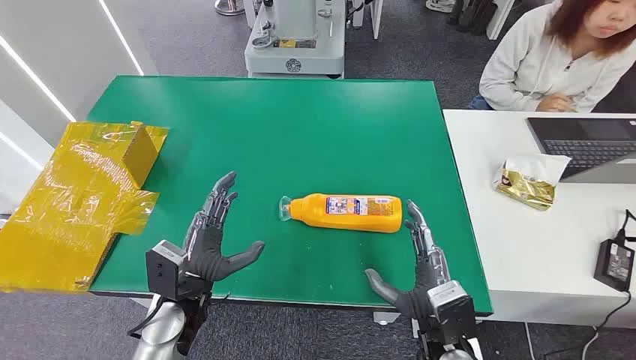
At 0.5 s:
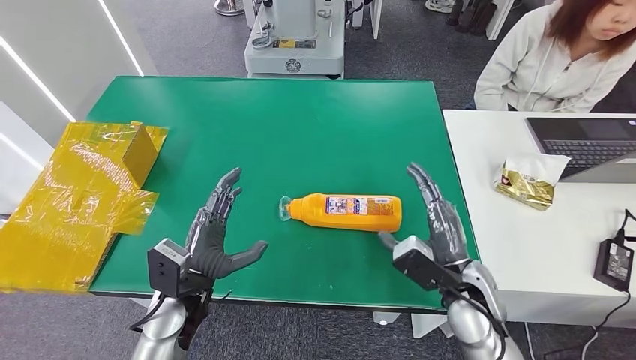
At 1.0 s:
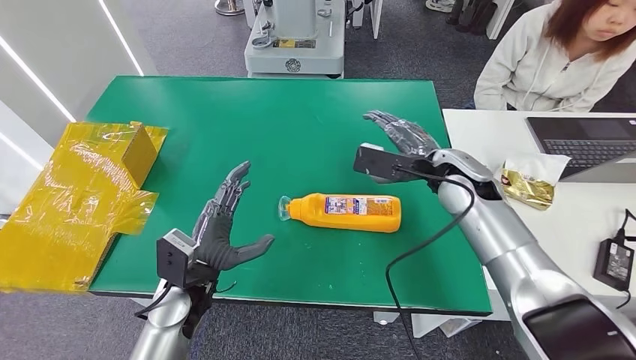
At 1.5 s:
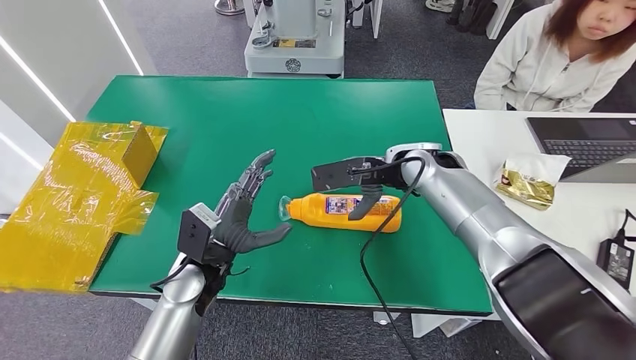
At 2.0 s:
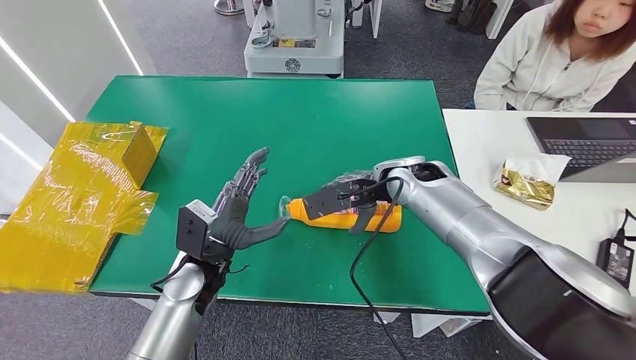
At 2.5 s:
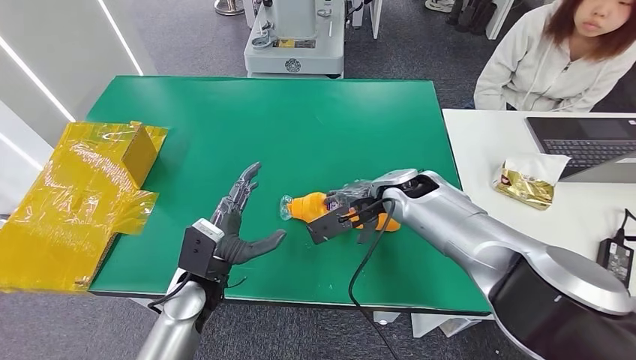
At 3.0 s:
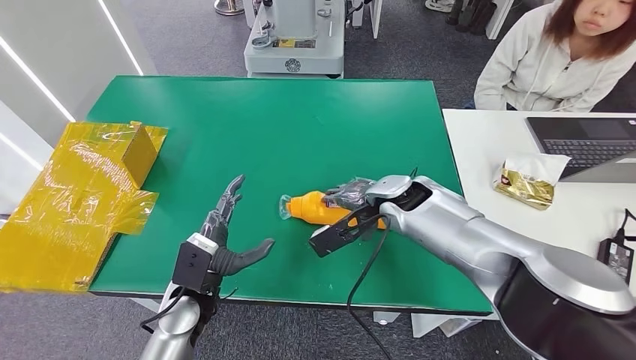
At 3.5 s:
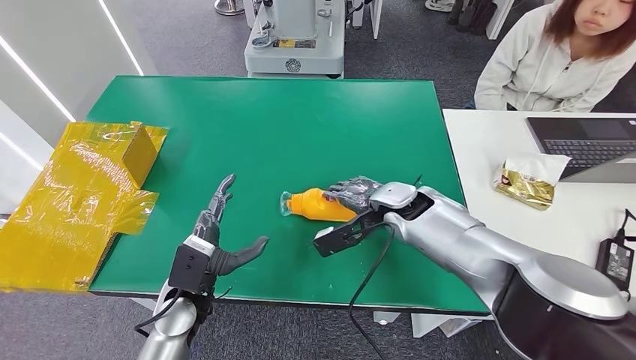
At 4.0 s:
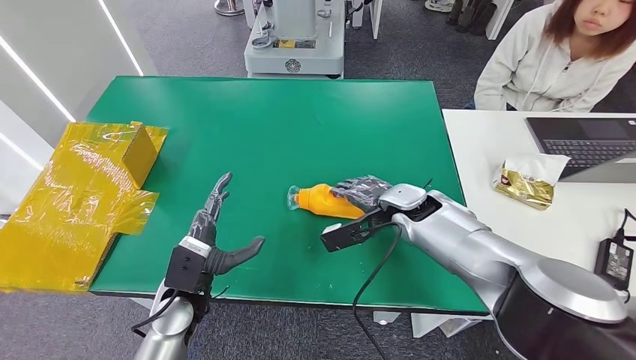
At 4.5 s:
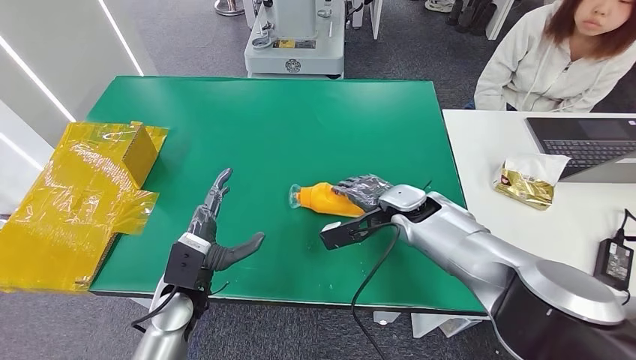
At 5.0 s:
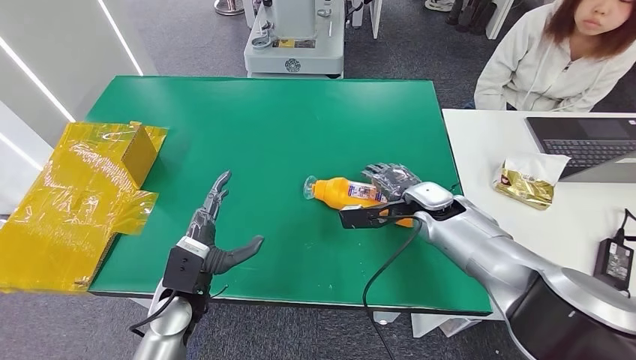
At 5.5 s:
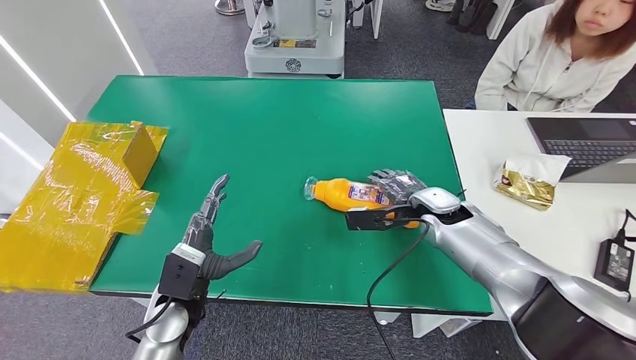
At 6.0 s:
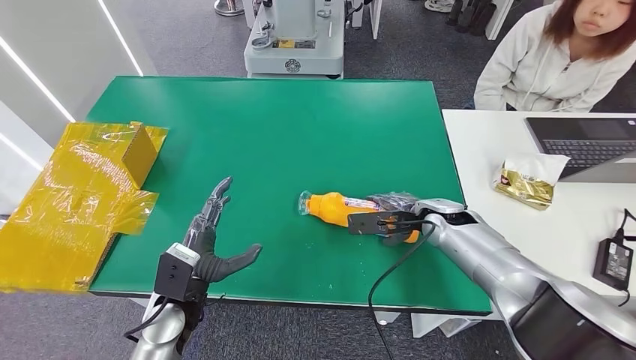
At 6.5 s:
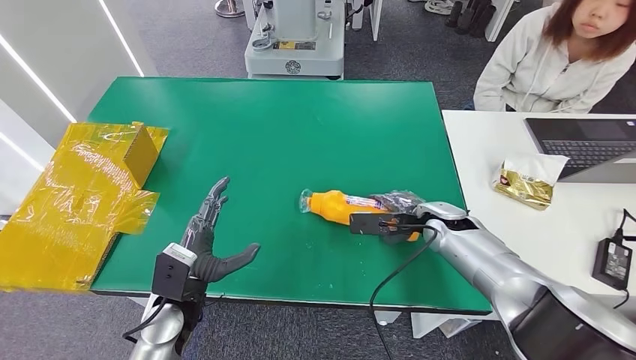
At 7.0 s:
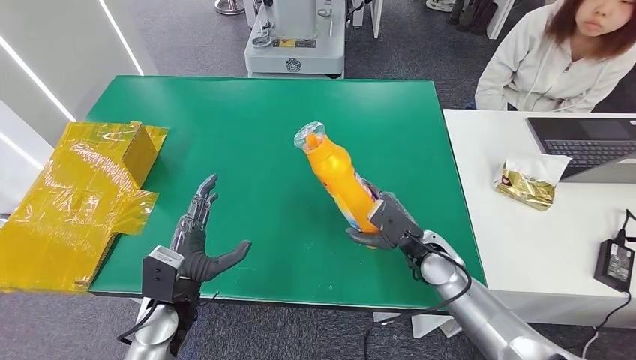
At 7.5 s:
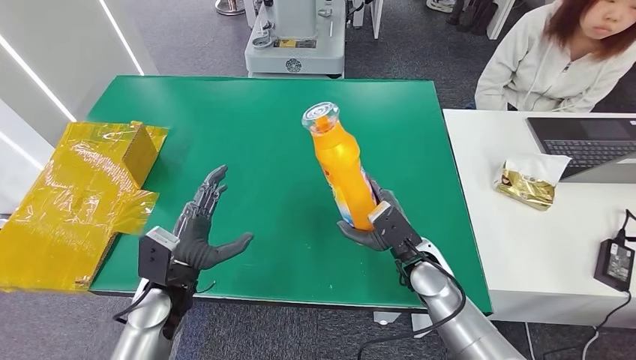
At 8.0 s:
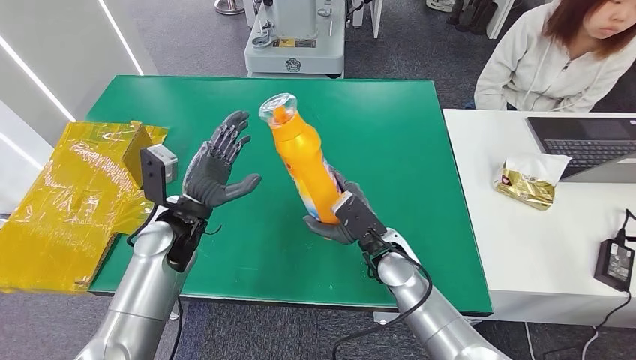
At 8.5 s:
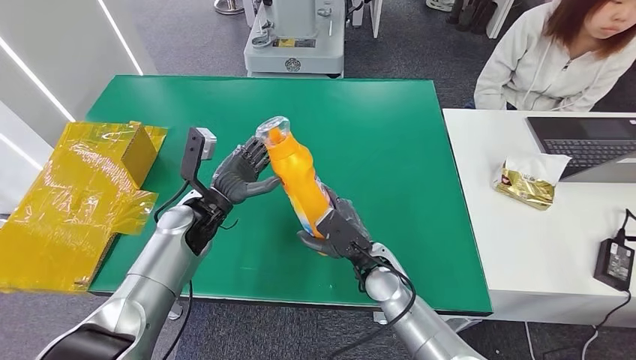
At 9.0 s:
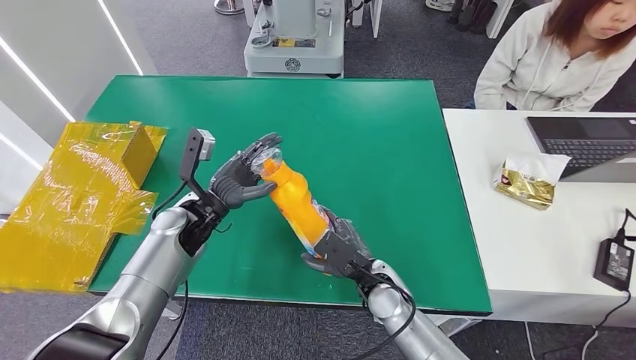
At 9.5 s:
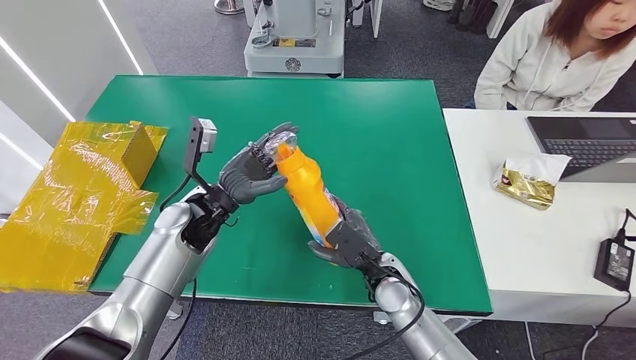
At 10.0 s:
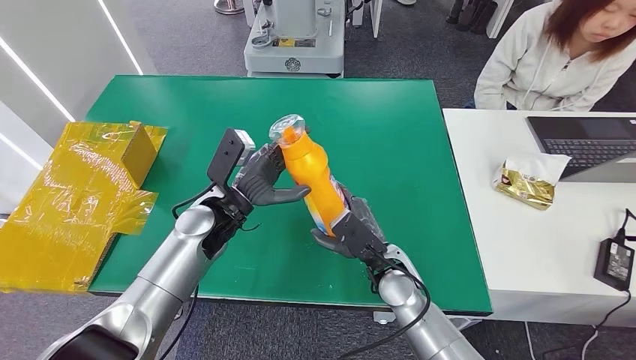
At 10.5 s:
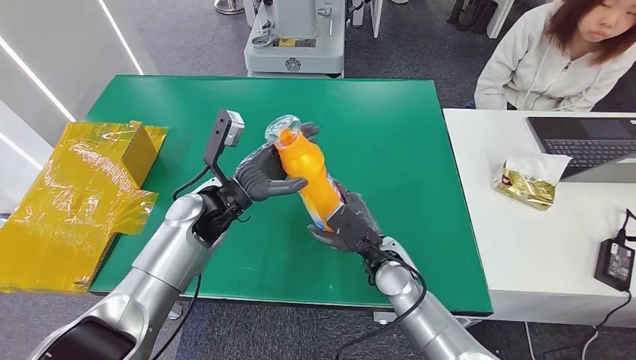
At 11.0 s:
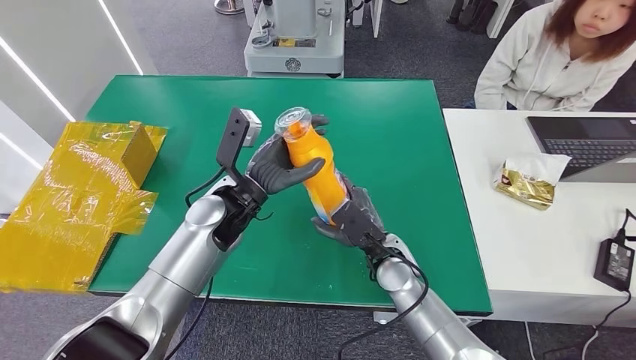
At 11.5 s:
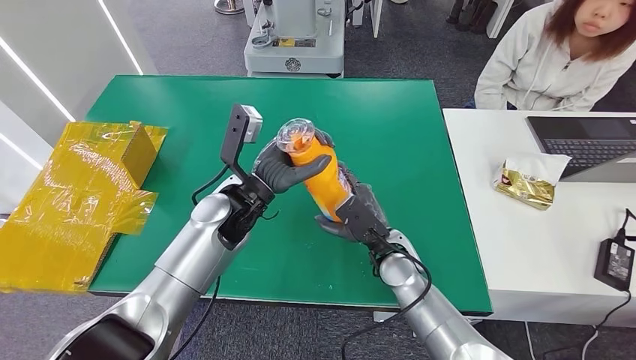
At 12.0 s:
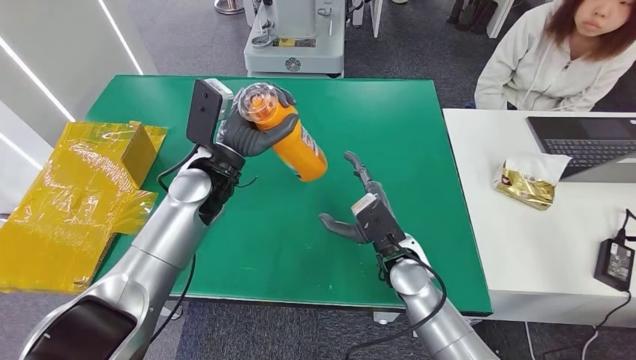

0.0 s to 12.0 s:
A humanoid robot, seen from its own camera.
Step, 0.0 to 8.0 s: Pick up the bottle from the table.
2.0 to 4.0 s: The right hand travels downward by about 5 cm, while the left hand shifts by some 5 cm.
4.0 to 6.0 s: The right hand goes approximately 5 cm to the right.
10.0 to 12.0 s: The left hand moves upward, approximately 5 cm.

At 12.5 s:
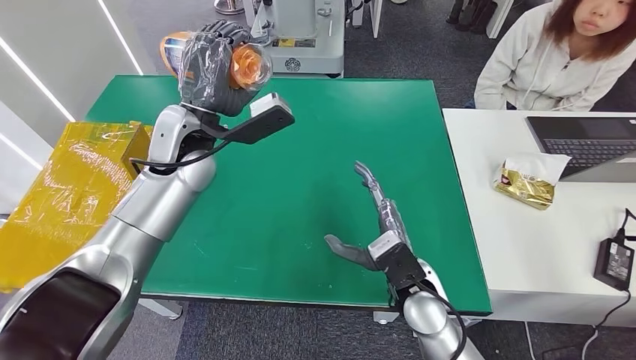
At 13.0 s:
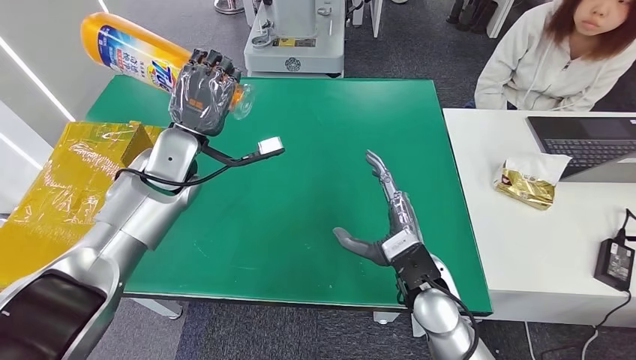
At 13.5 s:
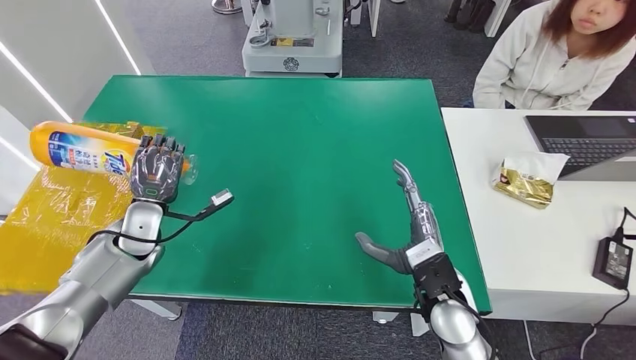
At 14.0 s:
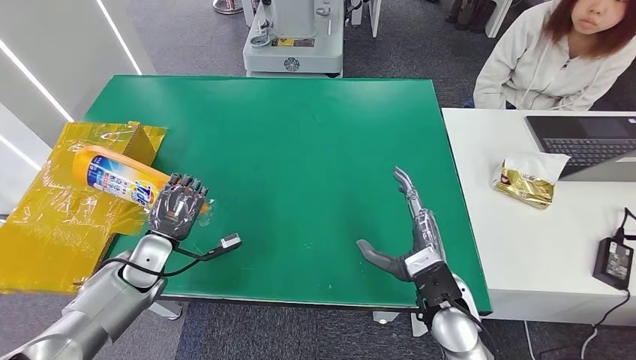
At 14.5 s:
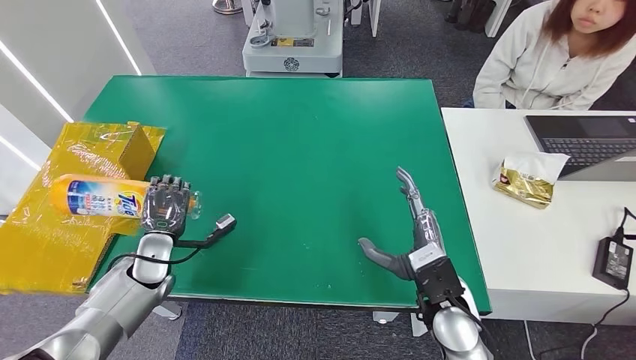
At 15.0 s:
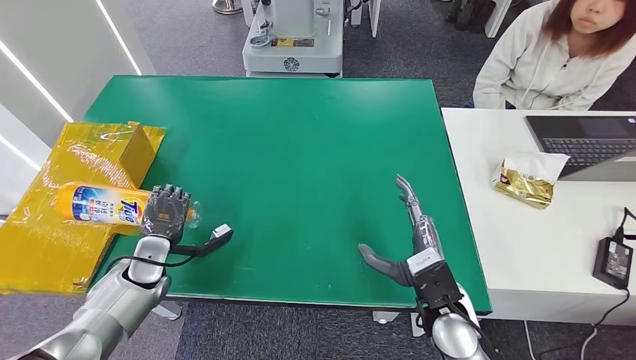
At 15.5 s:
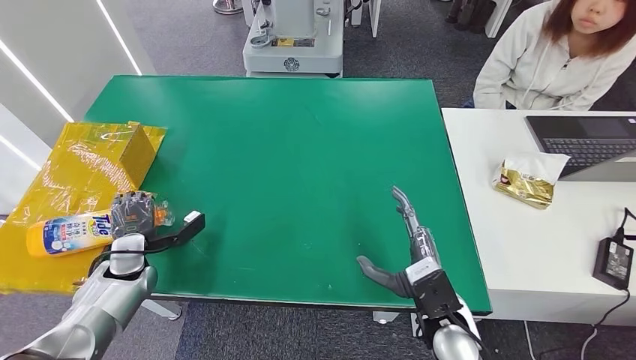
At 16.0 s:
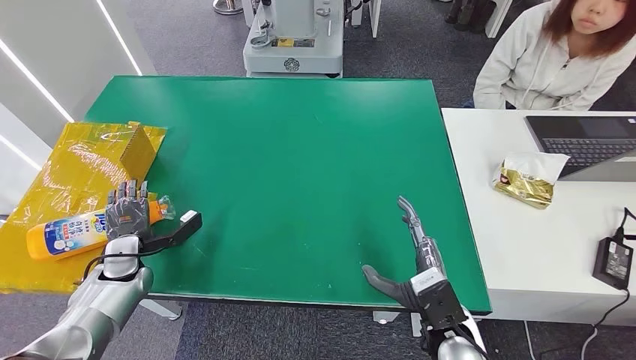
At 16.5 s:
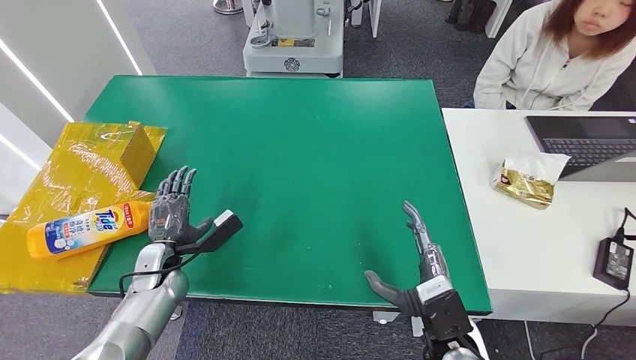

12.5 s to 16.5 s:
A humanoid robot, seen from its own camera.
Step, 12.5 to 16.5 s: Turn the bottle to the front side.
14.5 to 16.5 s: The right hand goes some 5 cm backward.
